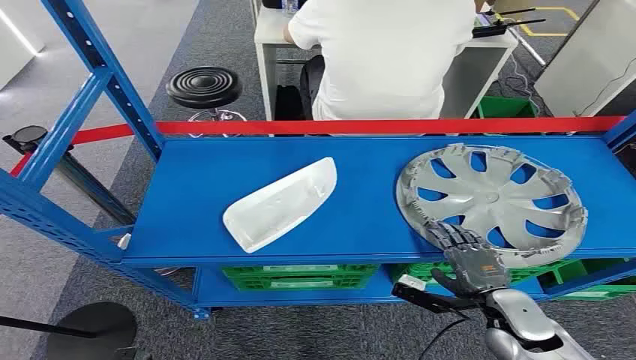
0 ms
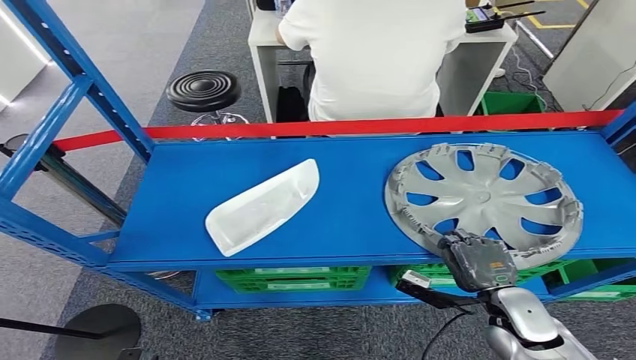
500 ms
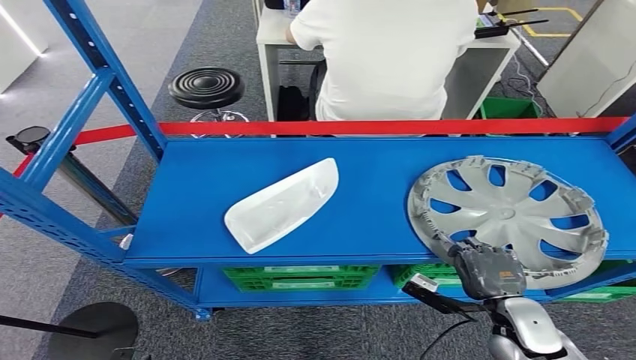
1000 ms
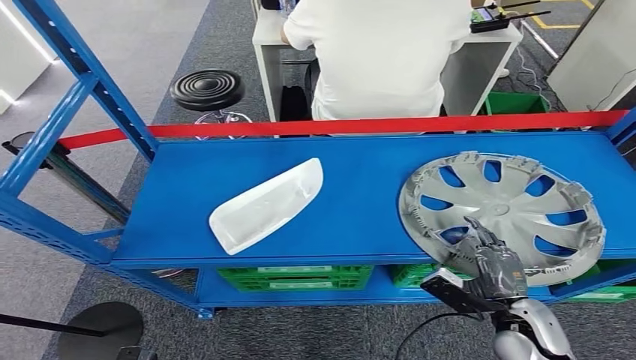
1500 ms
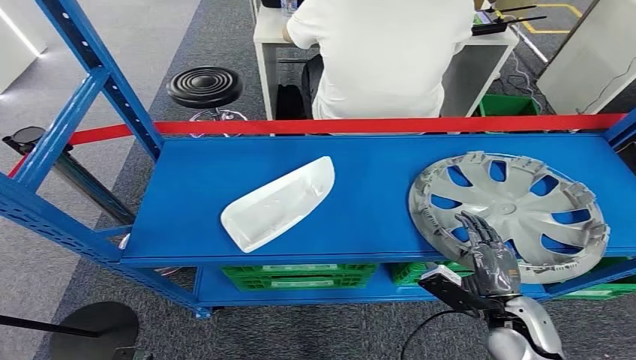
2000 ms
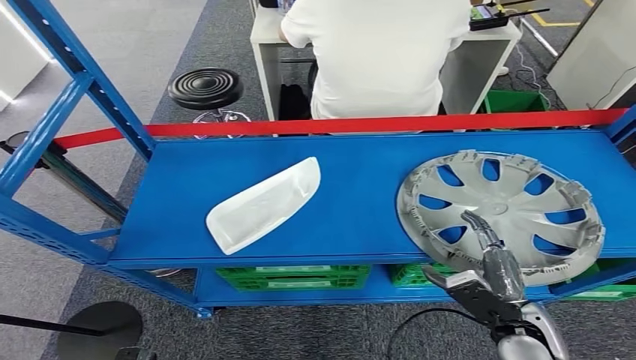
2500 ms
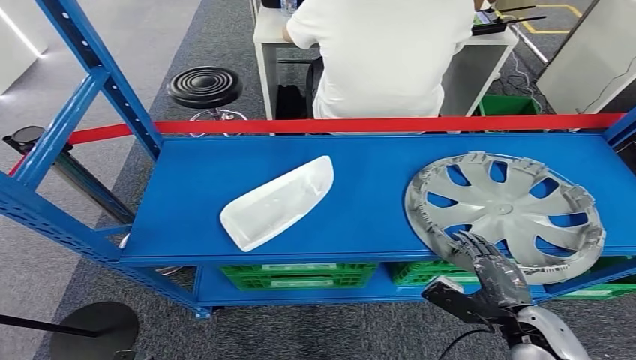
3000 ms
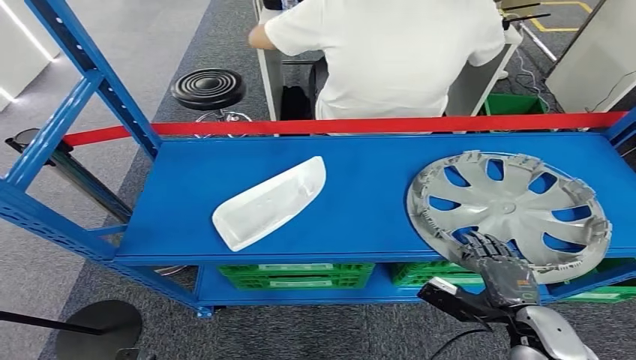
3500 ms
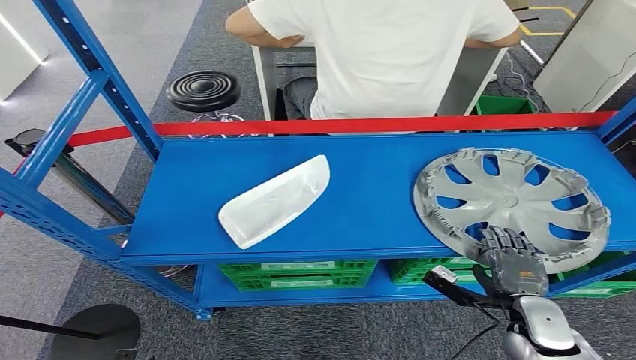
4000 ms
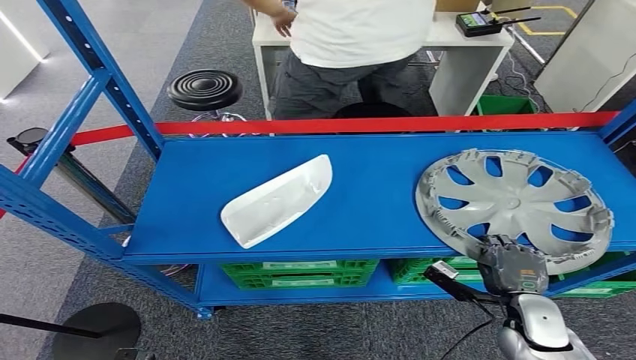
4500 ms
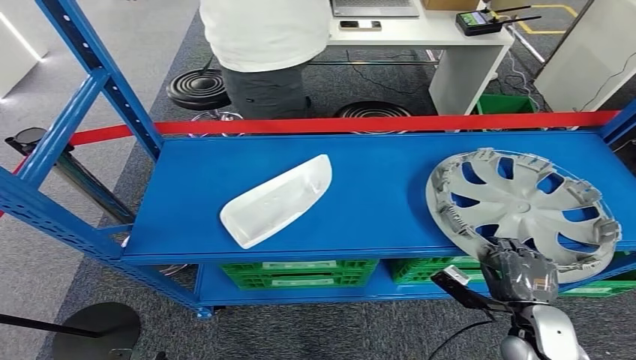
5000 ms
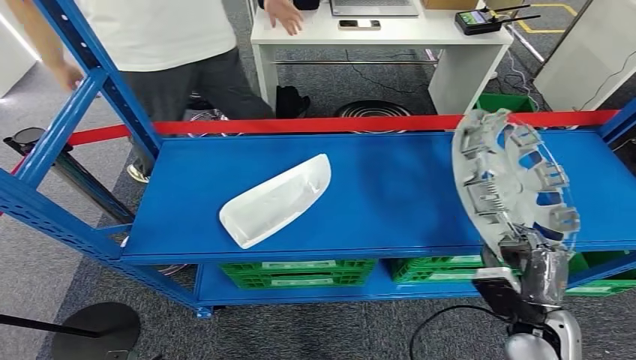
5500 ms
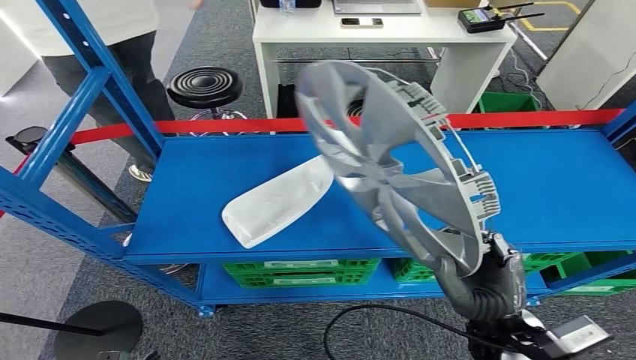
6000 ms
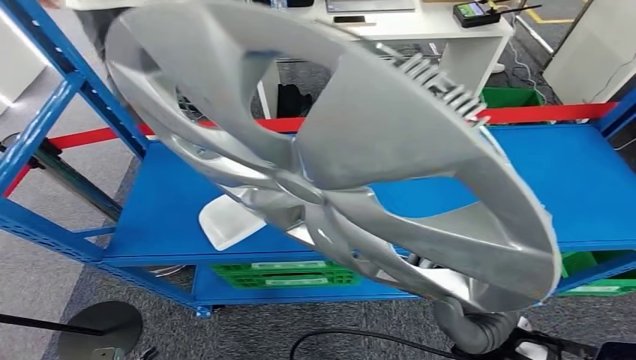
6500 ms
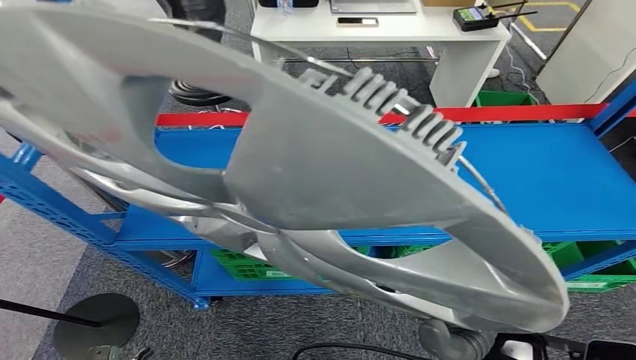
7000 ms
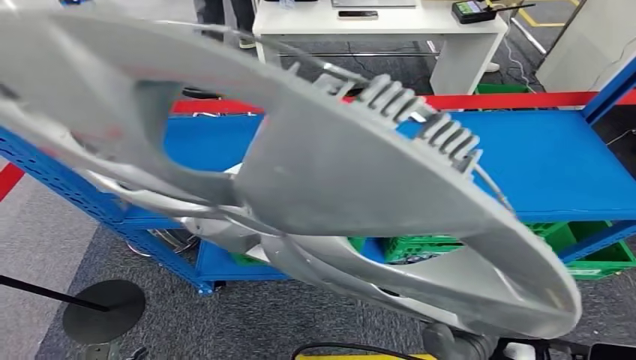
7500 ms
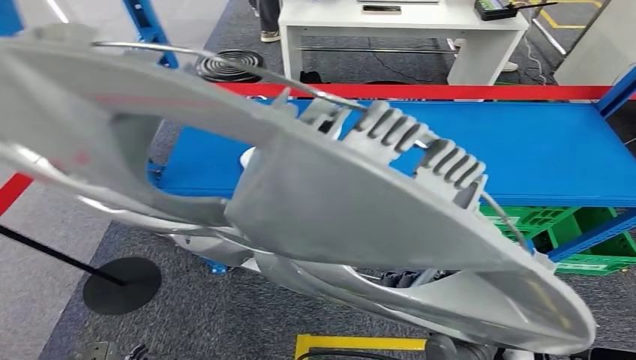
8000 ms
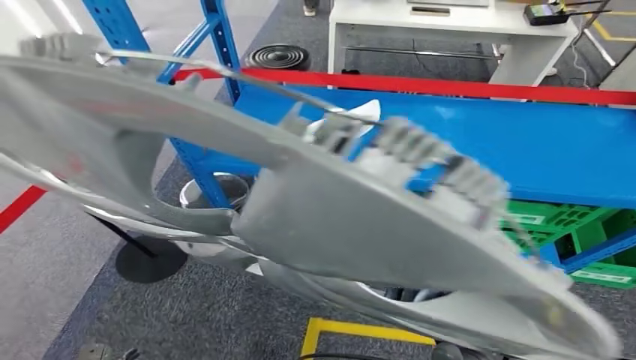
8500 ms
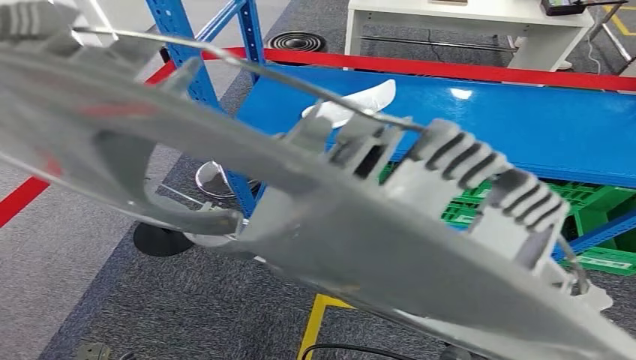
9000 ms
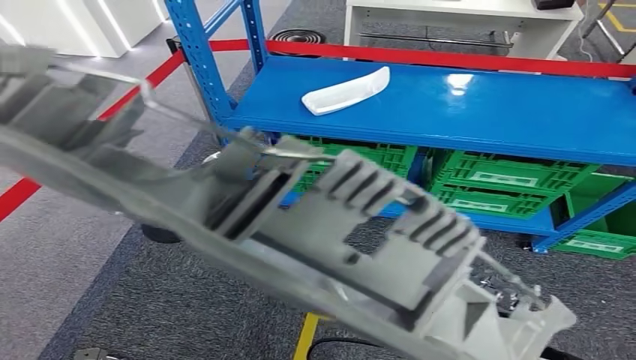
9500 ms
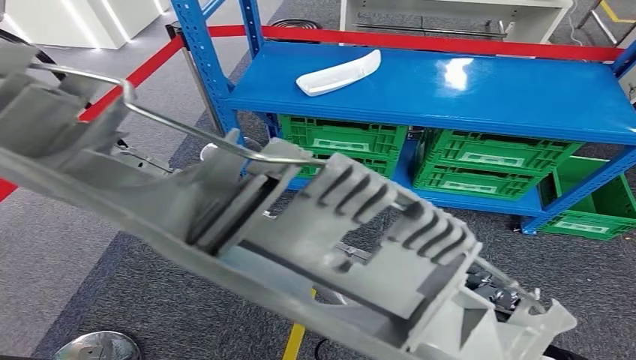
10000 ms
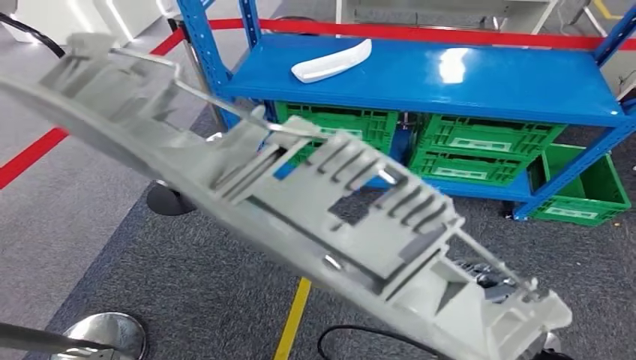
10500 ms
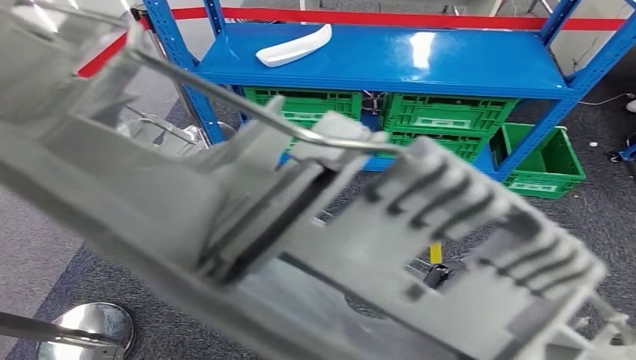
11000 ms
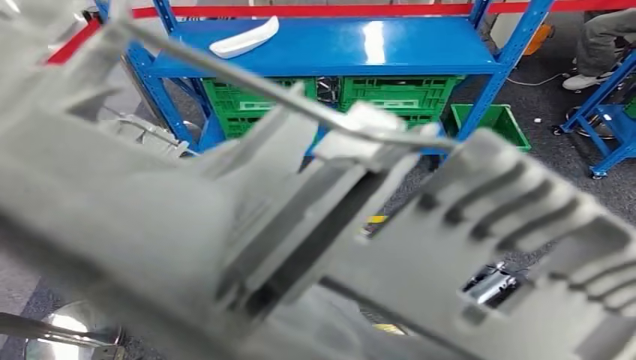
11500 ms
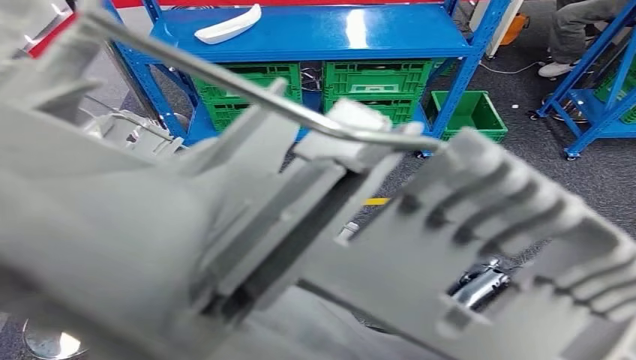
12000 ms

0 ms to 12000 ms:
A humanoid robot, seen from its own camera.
Step, 0 ms to 6500 ms: Take small components from the rack.

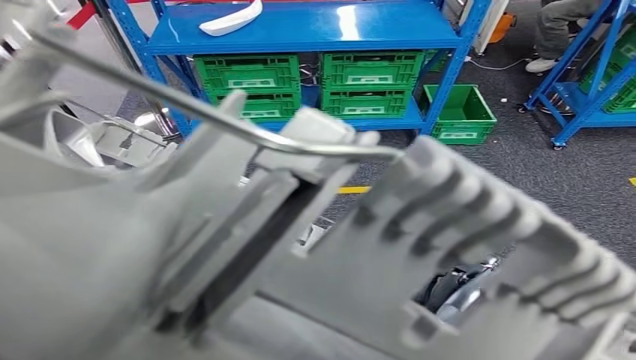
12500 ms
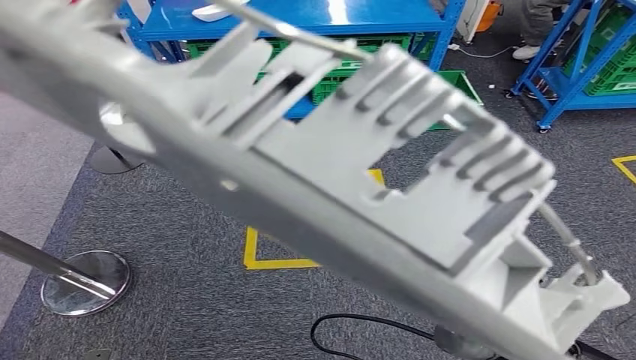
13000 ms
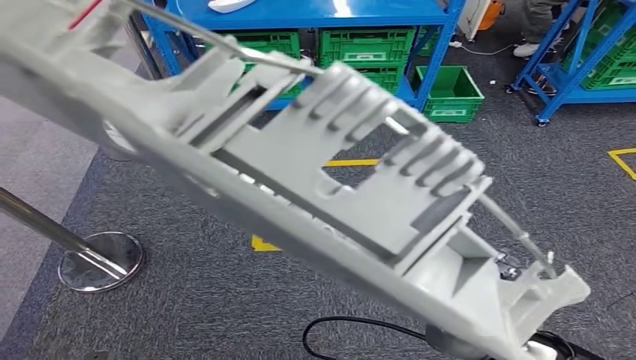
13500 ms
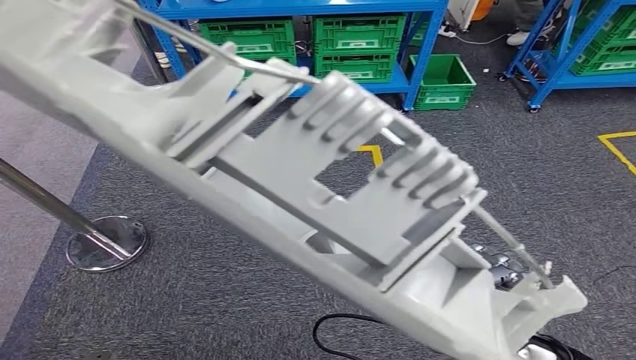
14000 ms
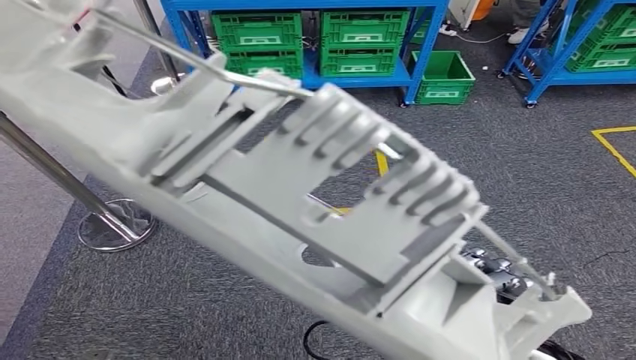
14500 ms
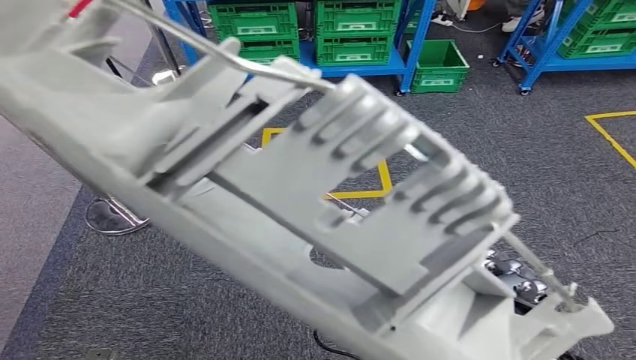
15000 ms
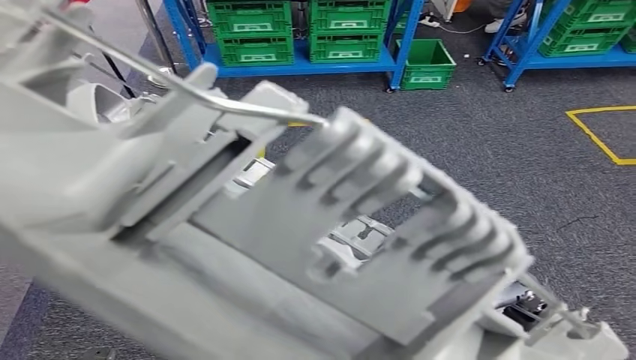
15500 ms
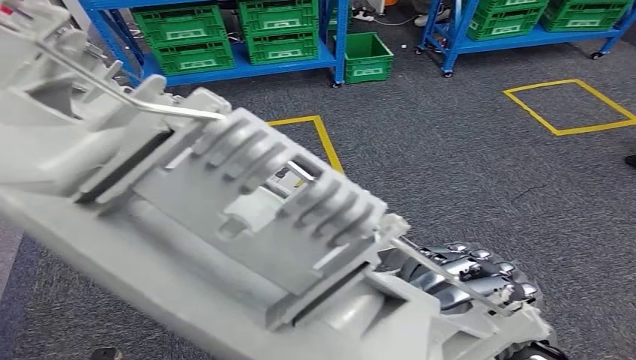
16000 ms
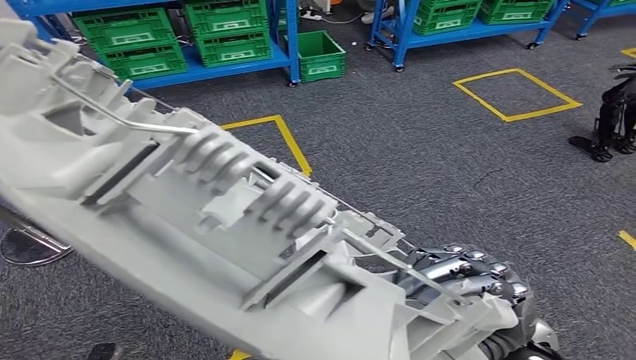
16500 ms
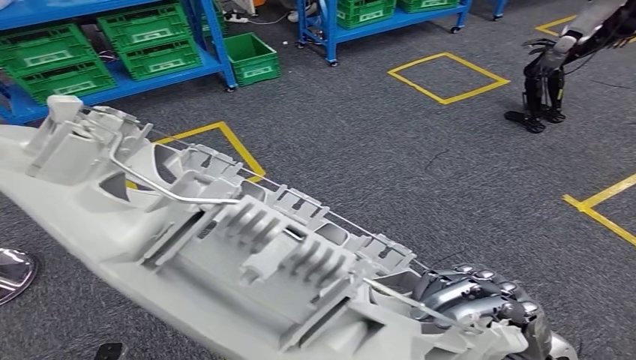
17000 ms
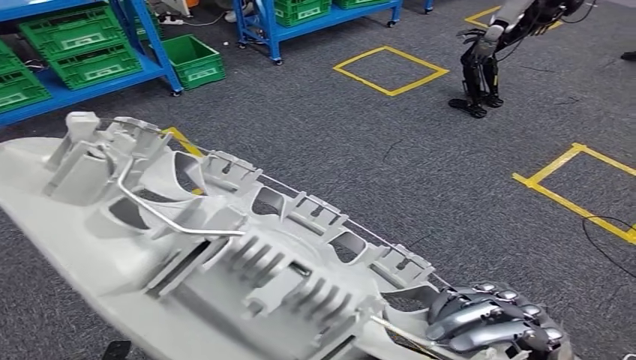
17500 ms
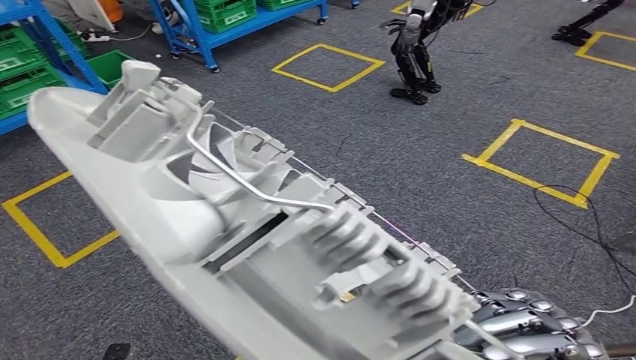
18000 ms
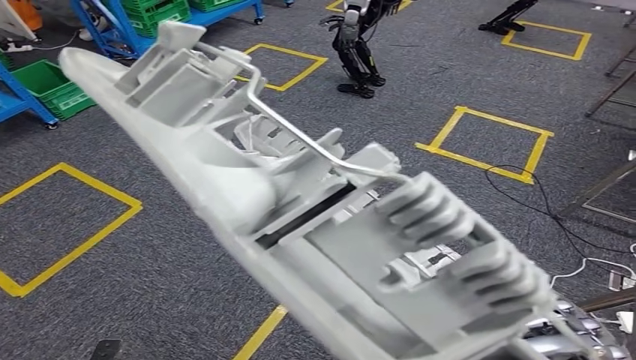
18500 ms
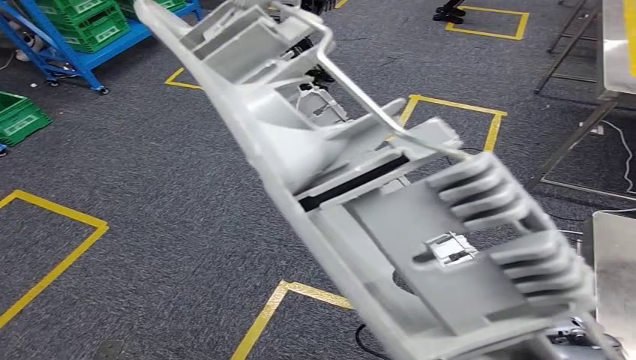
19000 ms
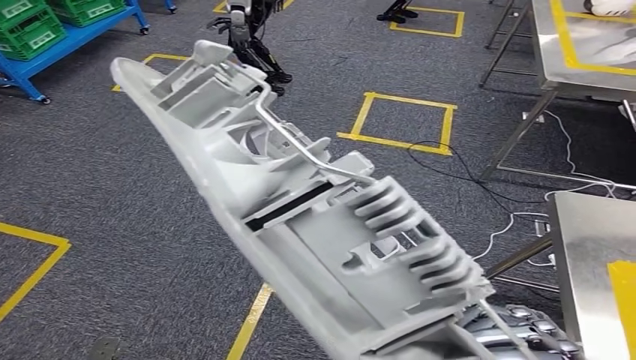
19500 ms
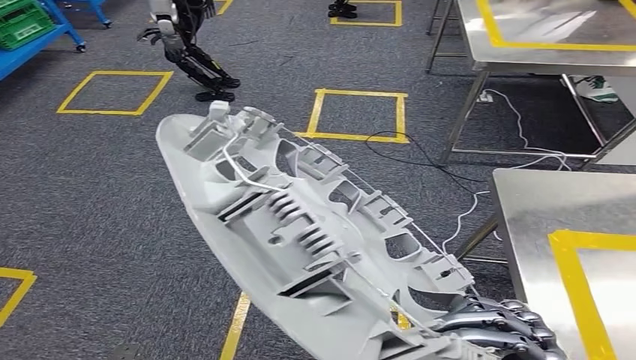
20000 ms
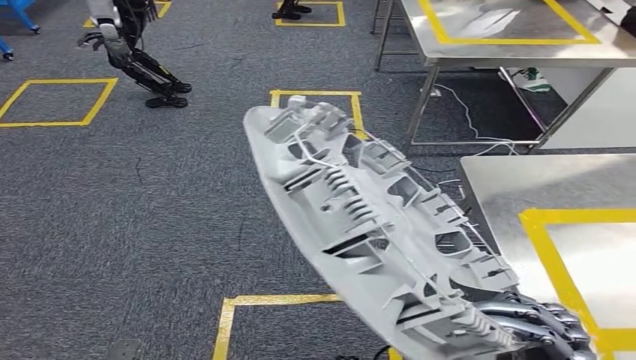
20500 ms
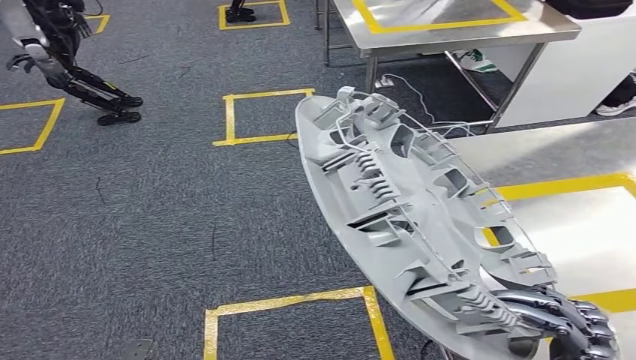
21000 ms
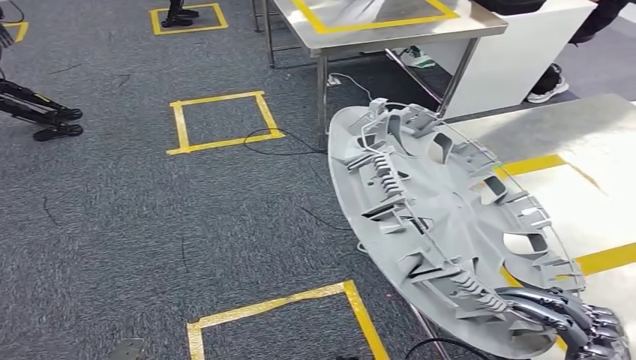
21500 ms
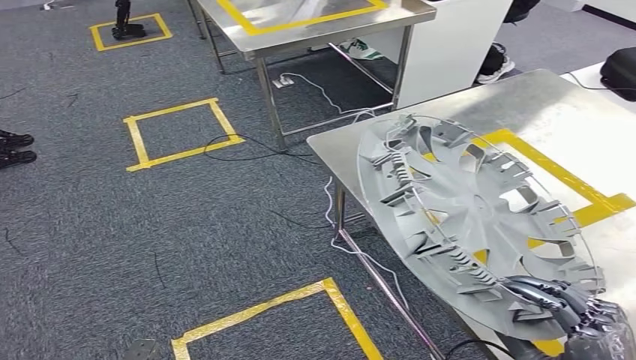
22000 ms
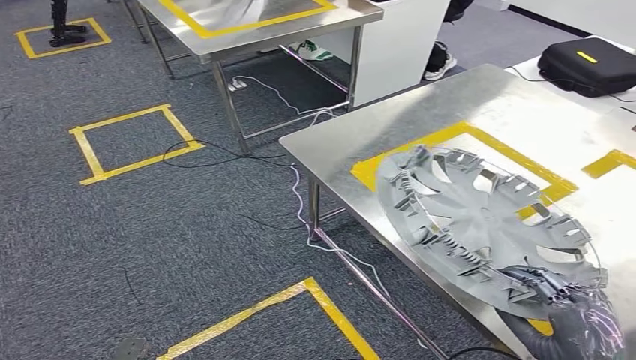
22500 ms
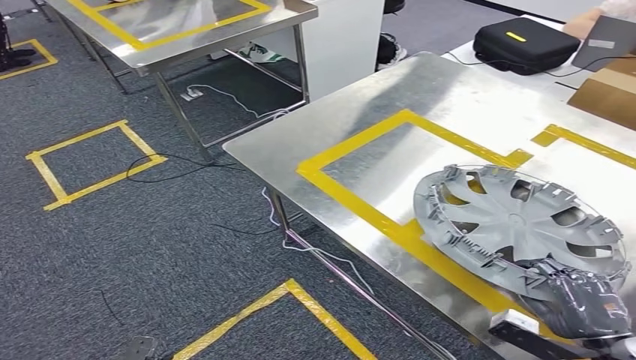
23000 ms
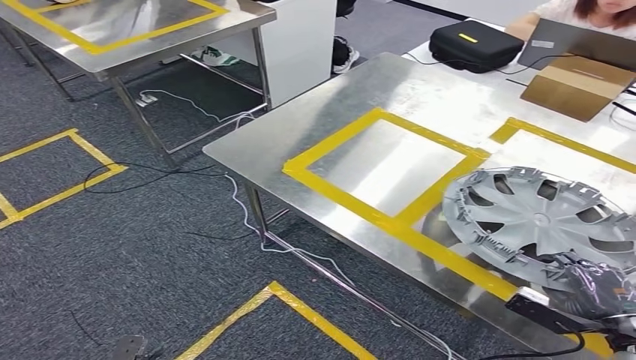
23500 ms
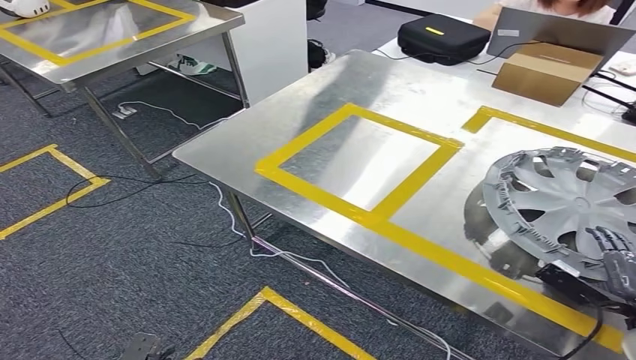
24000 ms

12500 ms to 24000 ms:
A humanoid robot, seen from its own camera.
Step, 12500 ms to 20500 ms: Move the small parts to the workbench.
